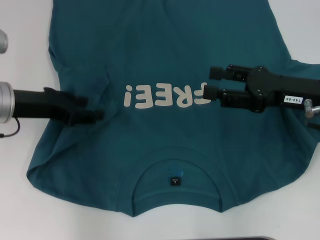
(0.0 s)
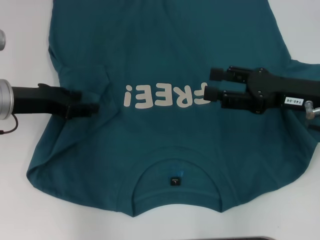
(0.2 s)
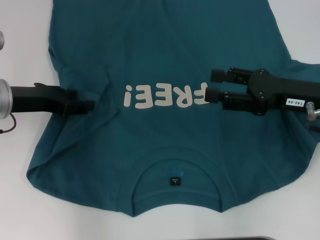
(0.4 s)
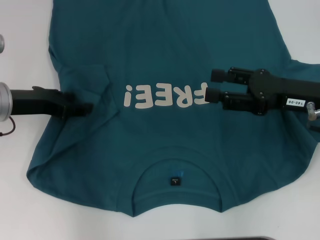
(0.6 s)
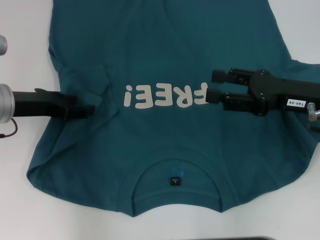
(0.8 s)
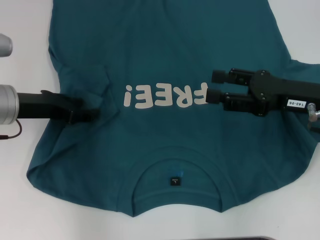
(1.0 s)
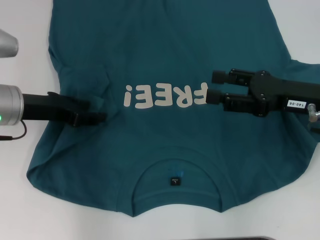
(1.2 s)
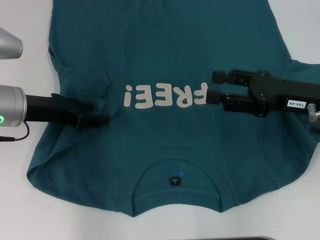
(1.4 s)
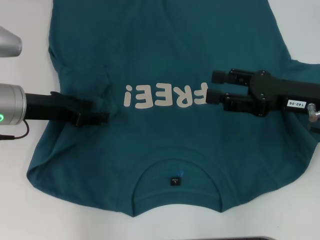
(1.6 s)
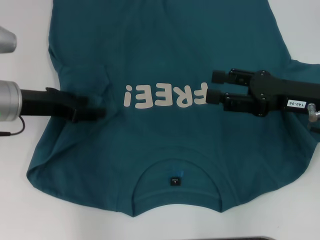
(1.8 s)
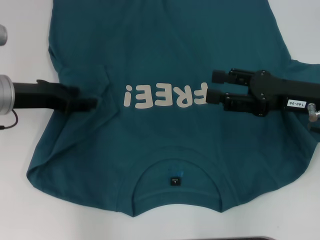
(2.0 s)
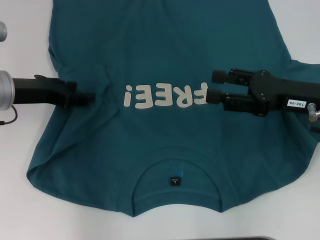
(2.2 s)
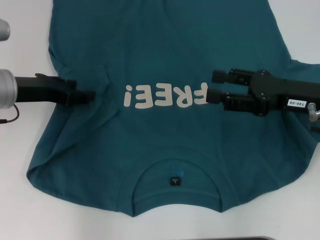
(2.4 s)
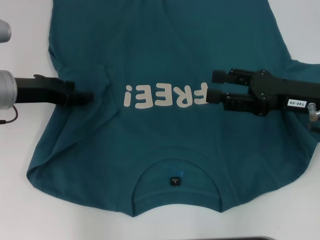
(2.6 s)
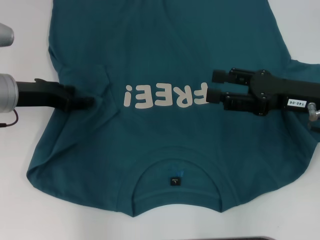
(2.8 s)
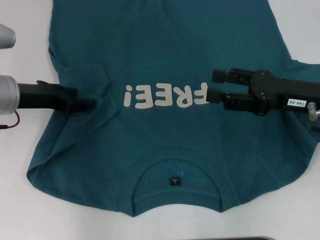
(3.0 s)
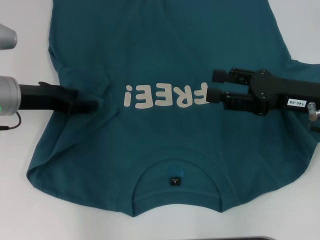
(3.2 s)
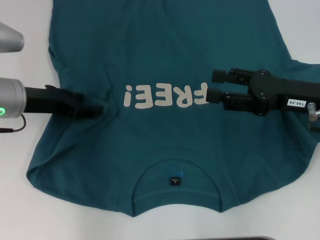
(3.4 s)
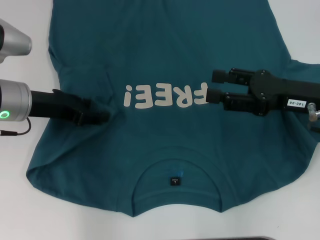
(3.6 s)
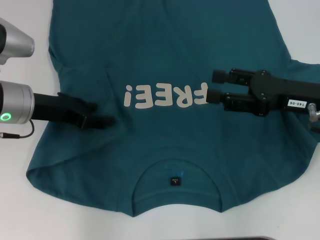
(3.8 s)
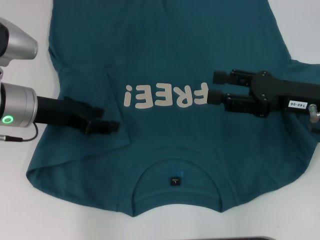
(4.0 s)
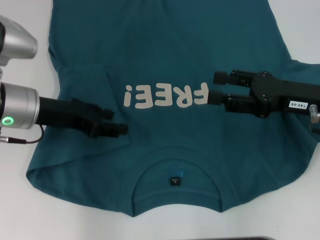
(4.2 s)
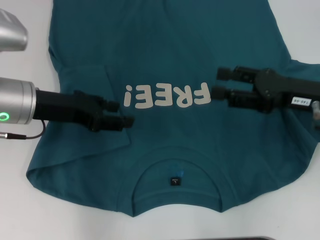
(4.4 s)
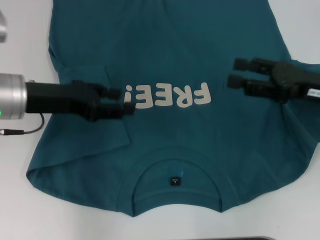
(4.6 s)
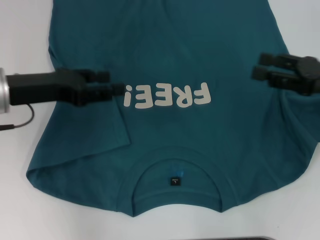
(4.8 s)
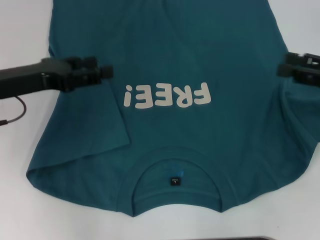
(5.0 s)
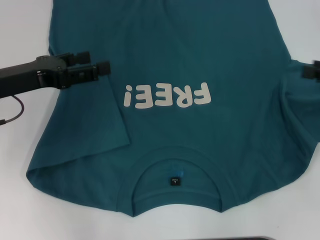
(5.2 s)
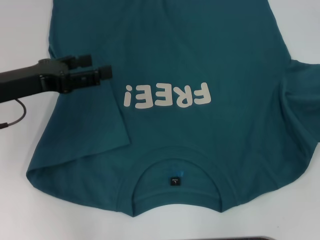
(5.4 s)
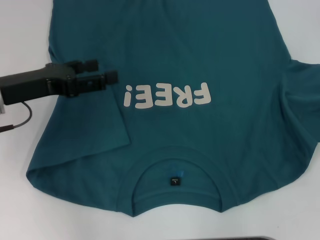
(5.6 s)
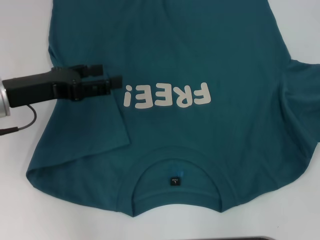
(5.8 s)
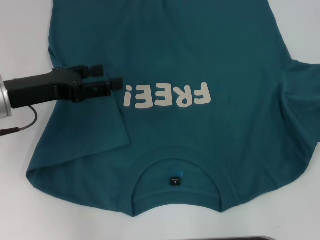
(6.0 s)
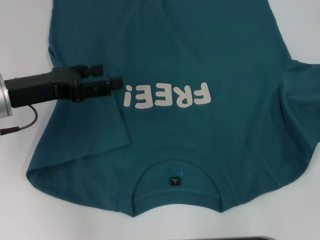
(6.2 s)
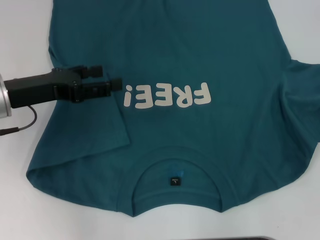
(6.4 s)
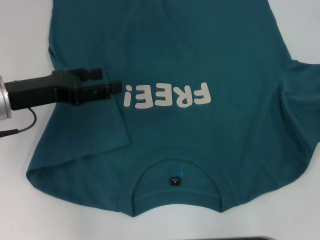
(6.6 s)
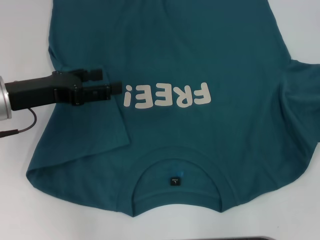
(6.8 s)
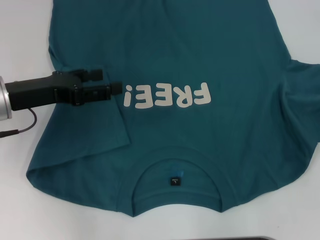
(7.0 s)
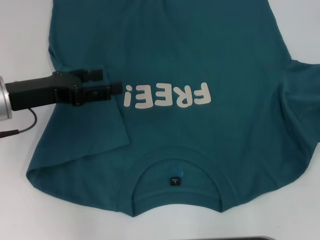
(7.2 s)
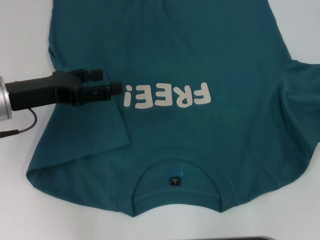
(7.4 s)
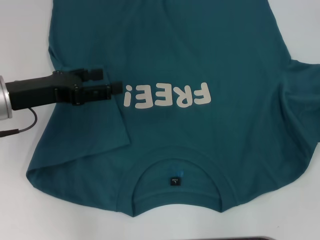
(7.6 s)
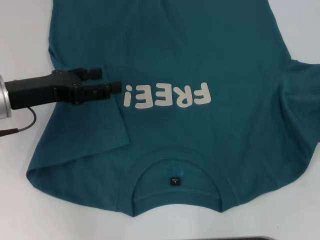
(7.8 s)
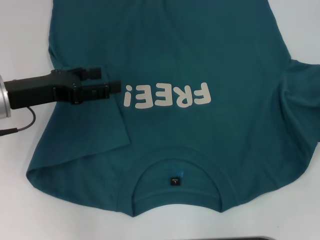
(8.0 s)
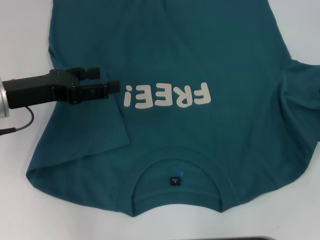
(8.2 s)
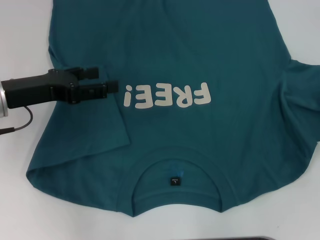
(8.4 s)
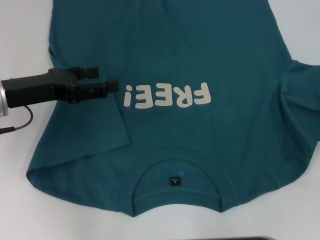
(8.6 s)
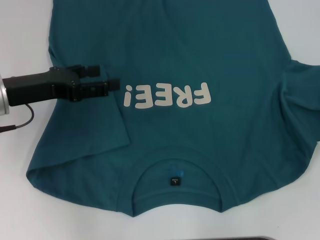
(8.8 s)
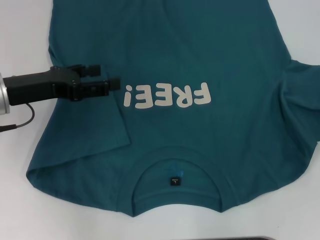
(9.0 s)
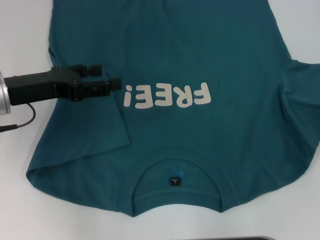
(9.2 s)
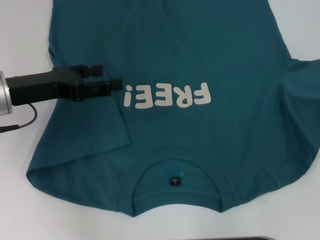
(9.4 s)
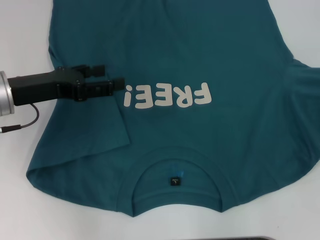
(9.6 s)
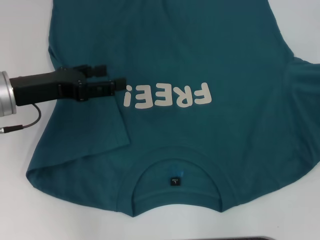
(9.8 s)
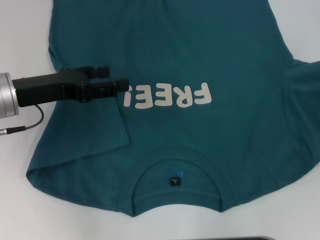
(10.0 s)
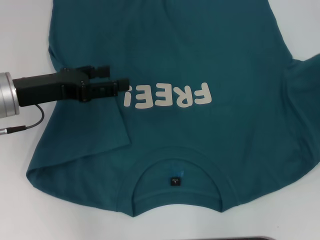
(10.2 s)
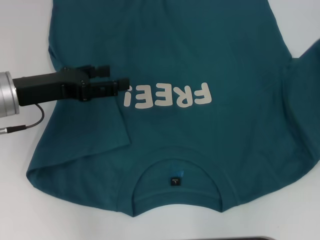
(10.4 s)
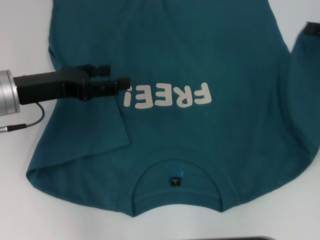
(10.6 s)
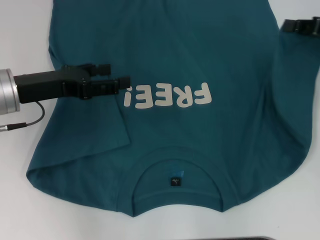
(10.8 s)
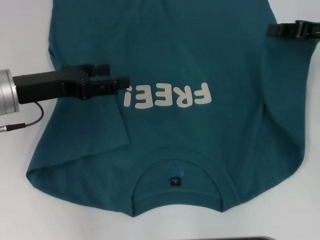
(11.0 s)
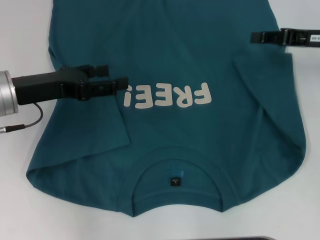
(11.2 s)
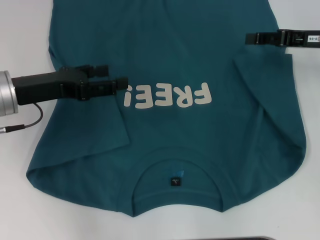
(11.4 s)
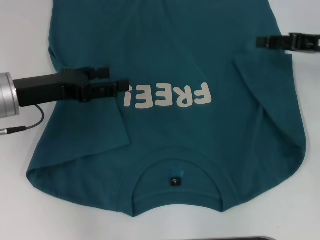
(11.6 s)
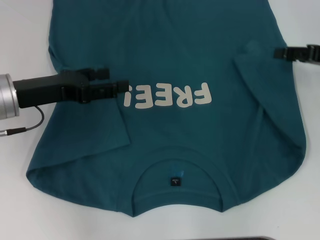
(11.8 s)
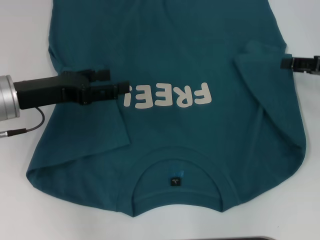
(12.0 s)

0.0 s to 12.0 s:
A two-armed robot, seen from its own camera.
Step, 0.0 to 4.6 s: Fold the bottom left sleeve with your left hand.
0.0 to 4.4 s: The grippers make only small movements.
4.4 to 6.0 s: The right gripper heads to the right, covering approximately 15 cm.
6.0 to 7.6 s: There are only small adjustments of the grippers.
9.0 to 10.4 s: The right gripper heads upward, covering approximately 5 cm.
10.4 to 12.0 s: The right gripper opens its fingers.

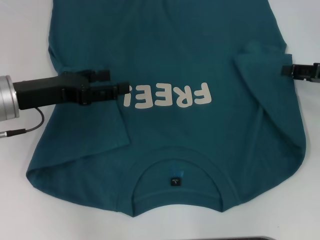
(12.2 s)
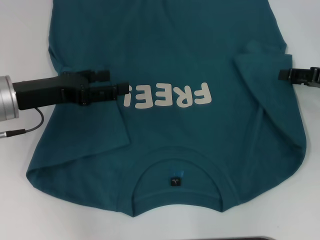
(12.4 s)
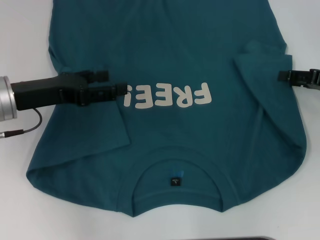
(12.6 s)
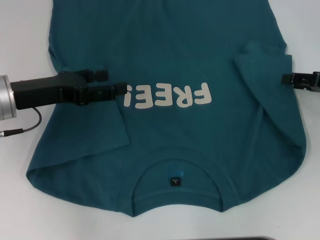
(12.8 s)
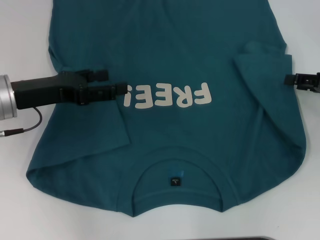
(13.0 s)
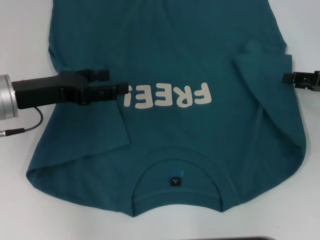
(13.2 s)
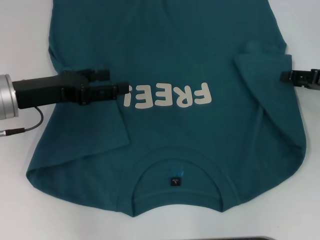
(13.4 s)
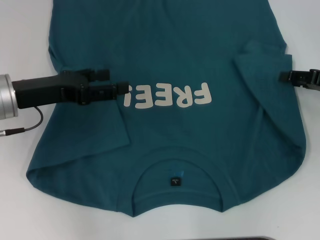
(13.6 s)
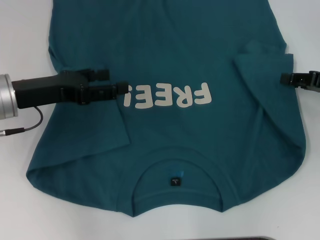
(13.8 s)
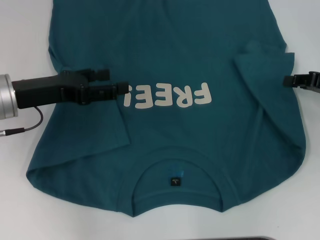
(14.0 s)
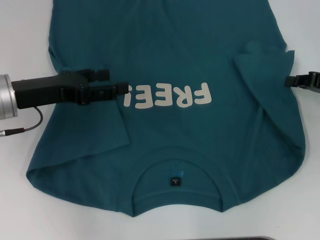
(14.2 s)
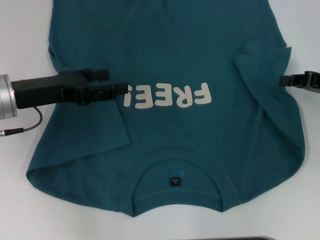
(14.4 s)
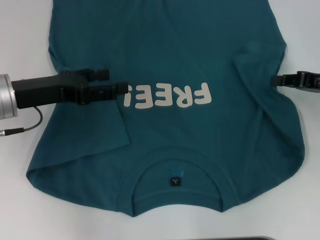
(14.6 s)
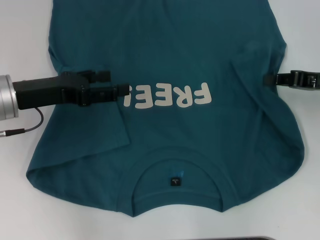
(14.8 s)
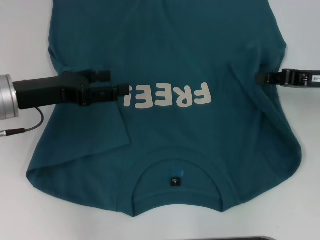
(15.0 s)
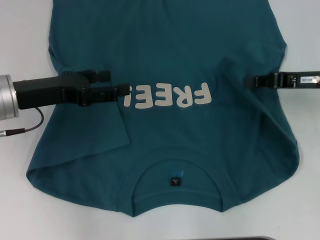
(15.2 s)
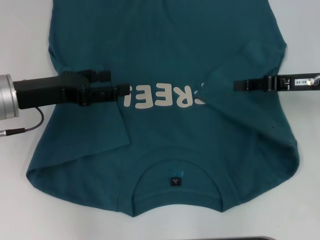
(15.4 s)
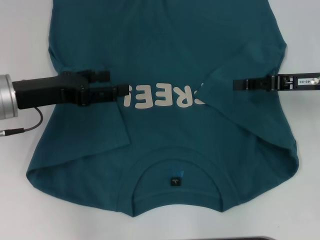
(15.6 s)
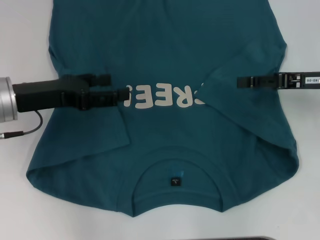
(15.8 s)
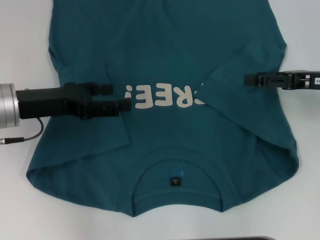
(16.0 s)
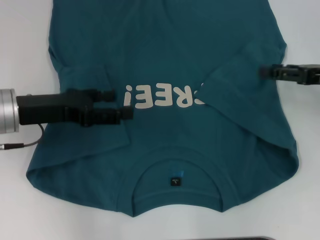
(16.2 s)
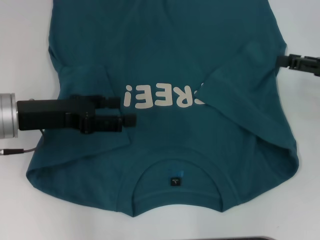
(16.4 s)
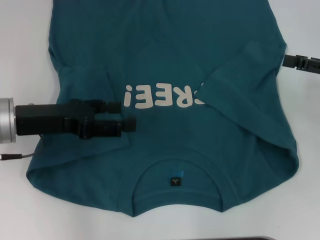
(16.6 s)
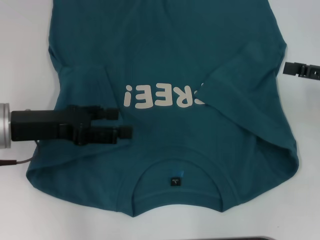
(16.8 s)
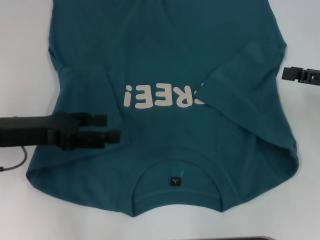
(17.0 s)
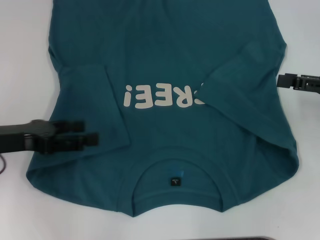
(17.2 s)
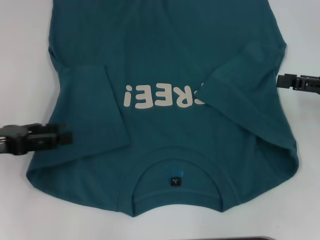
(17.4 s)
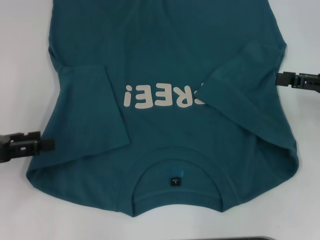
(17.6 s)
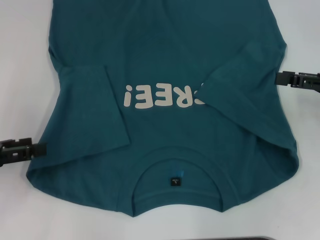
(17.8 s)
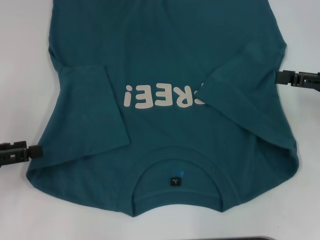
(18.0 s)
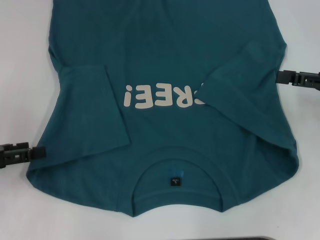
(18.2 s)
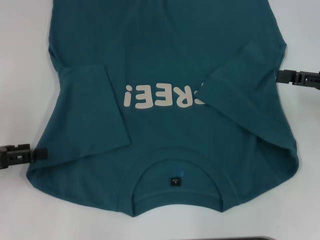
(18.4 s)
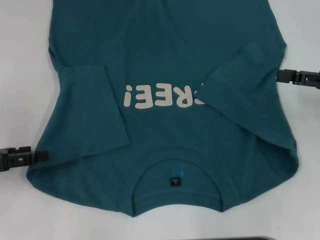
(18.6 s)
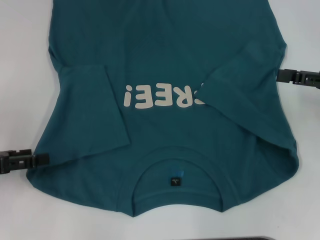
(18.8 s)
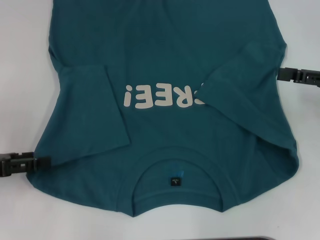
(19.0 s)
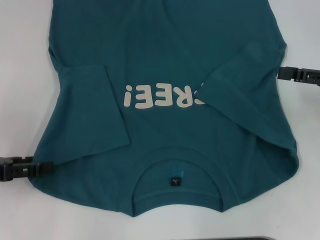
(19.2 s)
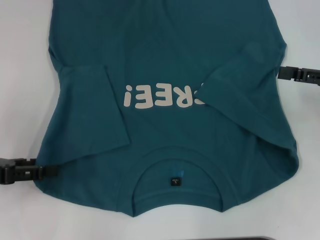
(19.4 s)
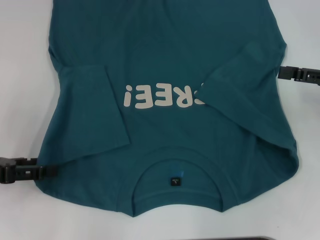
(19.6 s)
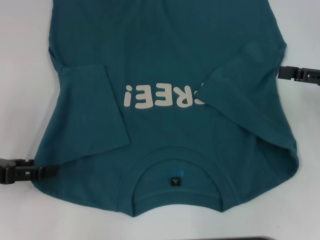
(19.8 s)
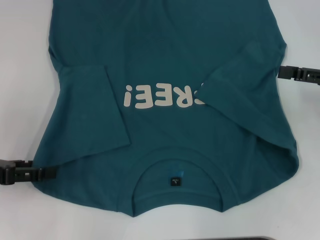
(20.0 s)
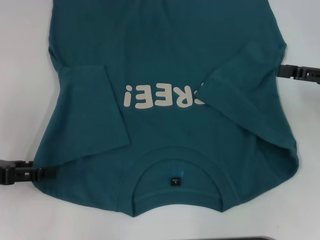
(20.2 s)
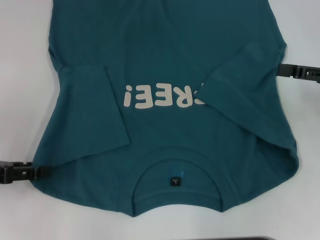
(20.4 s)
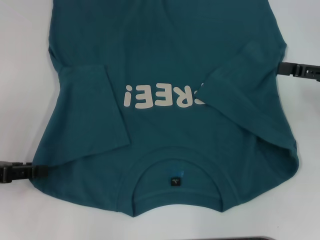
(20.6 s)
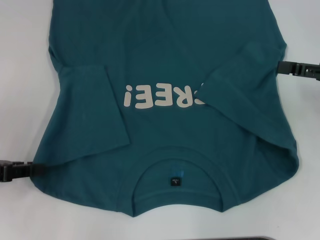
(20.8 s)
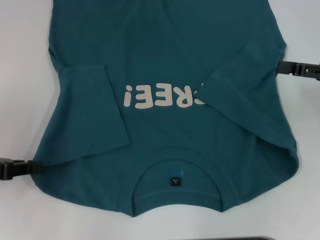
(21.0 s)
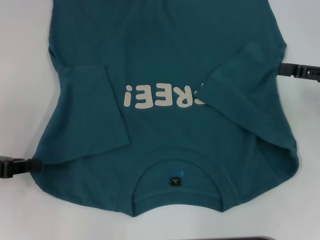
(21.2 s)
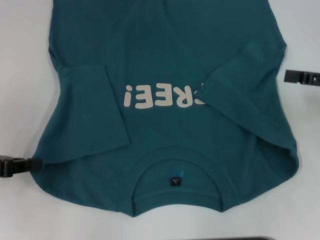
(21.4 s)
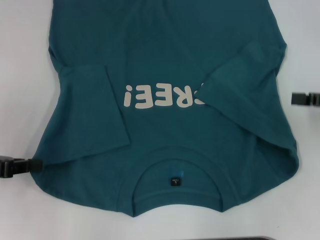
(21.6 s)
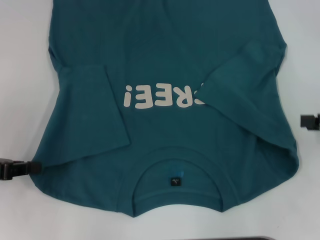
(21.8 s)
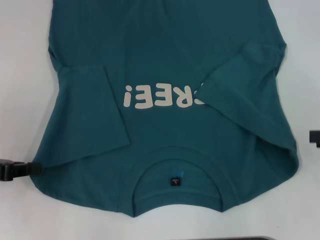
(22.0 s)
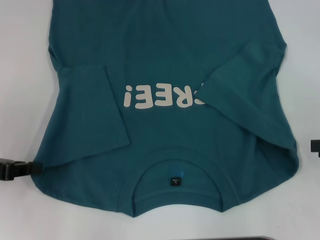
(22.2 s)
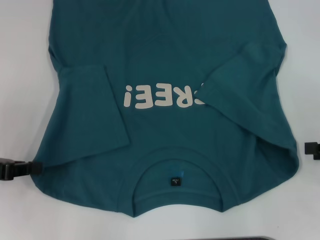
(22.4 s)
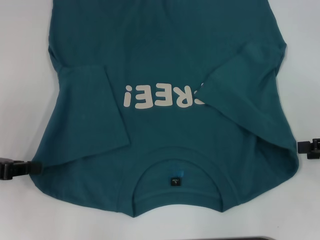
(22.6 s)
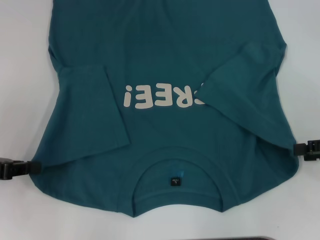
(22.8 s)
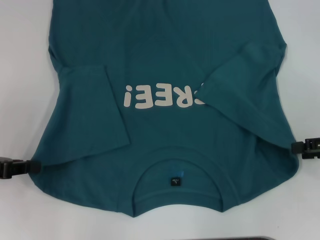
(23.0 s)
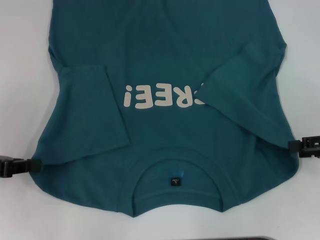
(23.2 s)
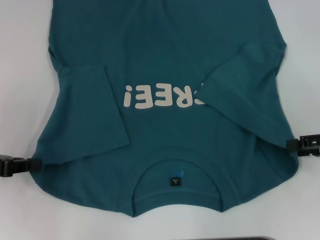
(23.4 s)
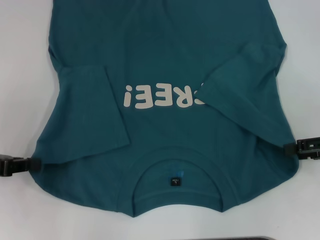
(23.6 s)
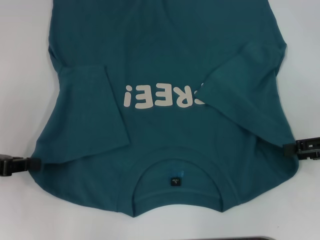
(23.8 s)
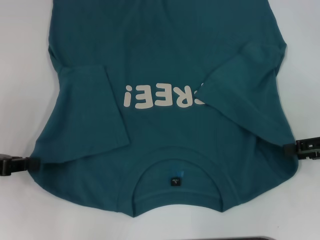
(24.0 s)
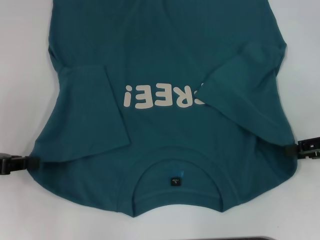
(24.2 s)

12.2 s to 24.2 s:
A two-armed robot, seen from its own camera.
Step, 12.2 to 15.8 s: Fold the bottom right sleeve to the right.
Step, 16.0 to 21.6 s: Grab the bottom left corner with your left hand.
12.2 to 13.8 s: There are only small adjustments of the grippers.
13.8 to 15.2 s: The right gripper moves to the left, some 5 cm, and closes its fingers.
15.2 to 16.6 s: The right gripper heads to the right, covering approximately 5 cm, and opens up.
16.6 to 18.2 s: The left gripper moves to the left and backward, about 15 cm.
18.2 to 19.8 s: The grippers stay close to where they were, moving slightly.
19.8 to 21.2 s: The left gripper closes.
21.2 to 22.6 s: The right gripper goes roughly 5 cm backward.
22.6 to 24.2 s: The grippers stay close to where they were, moving slightly.
